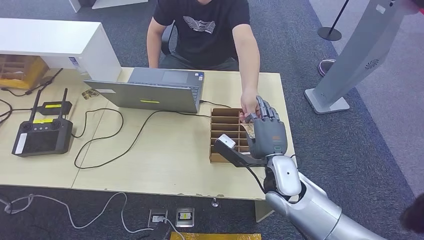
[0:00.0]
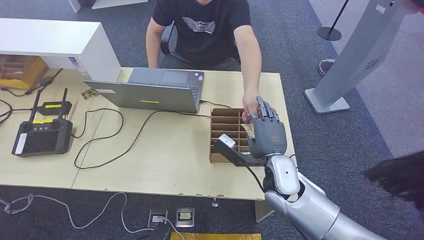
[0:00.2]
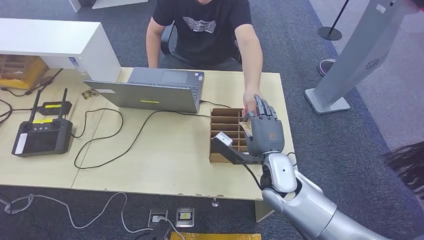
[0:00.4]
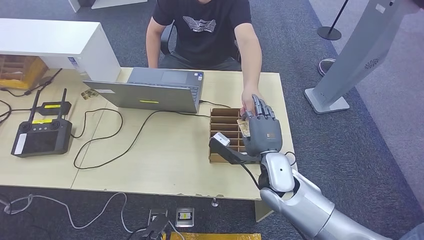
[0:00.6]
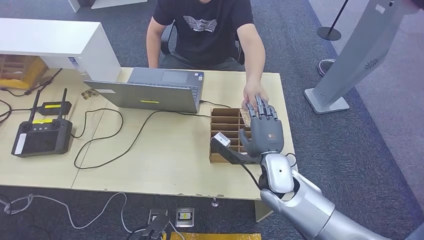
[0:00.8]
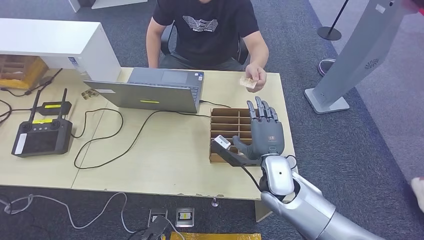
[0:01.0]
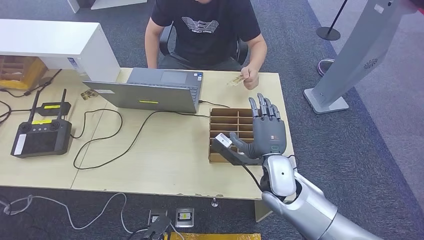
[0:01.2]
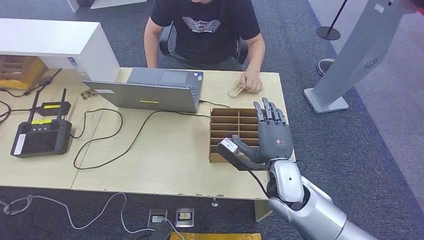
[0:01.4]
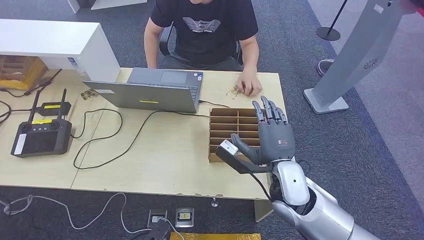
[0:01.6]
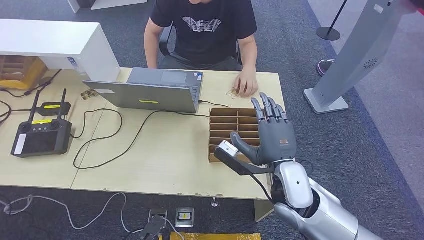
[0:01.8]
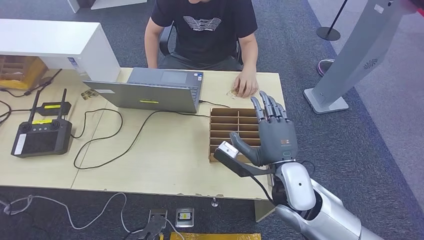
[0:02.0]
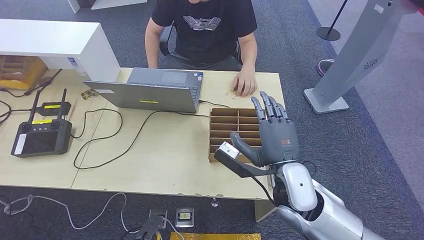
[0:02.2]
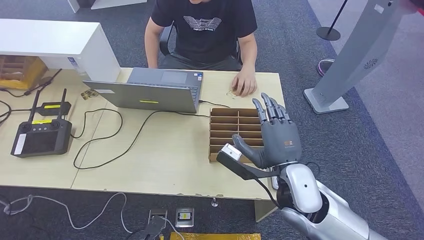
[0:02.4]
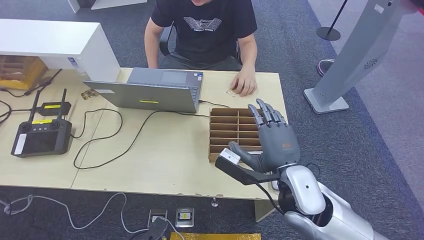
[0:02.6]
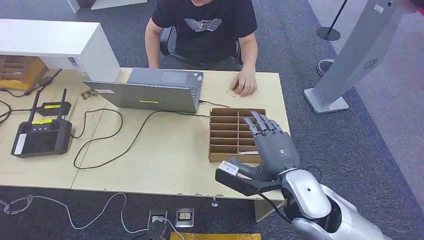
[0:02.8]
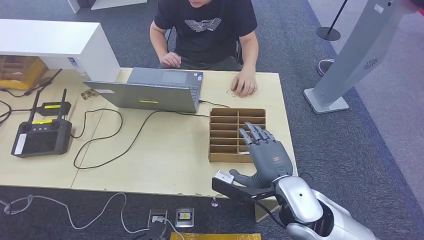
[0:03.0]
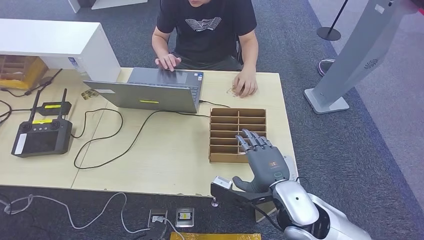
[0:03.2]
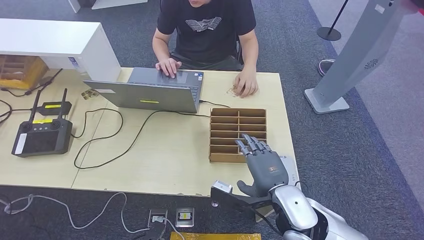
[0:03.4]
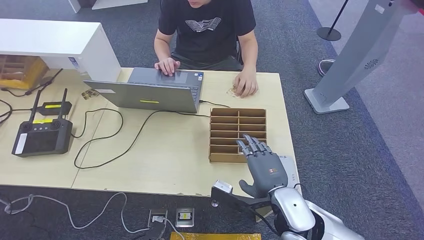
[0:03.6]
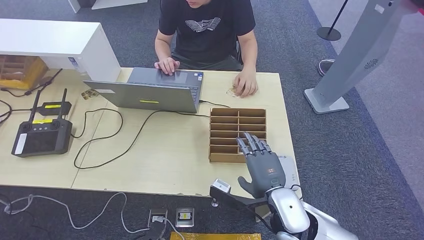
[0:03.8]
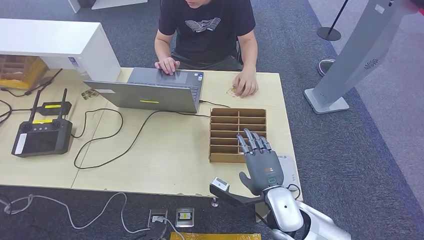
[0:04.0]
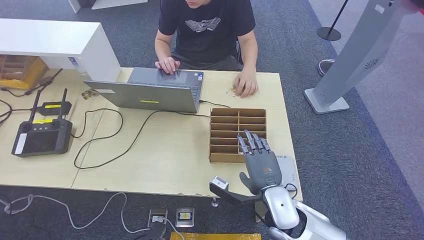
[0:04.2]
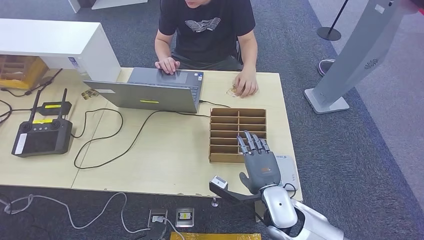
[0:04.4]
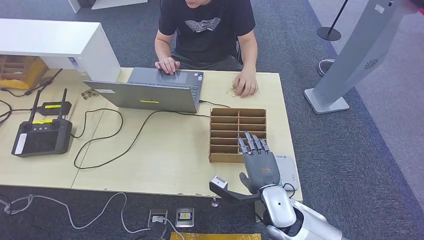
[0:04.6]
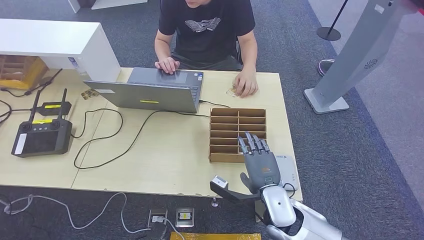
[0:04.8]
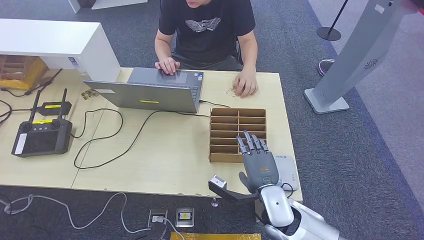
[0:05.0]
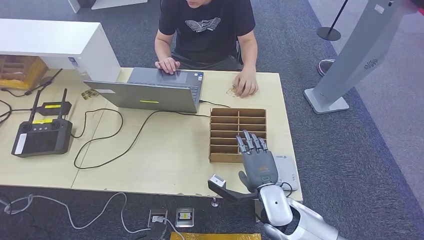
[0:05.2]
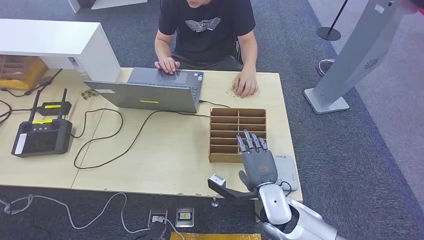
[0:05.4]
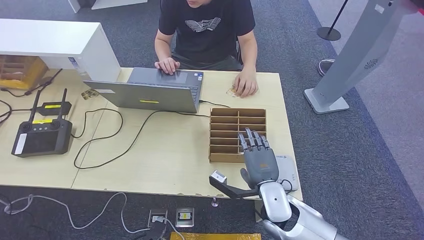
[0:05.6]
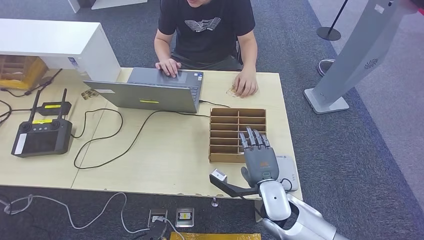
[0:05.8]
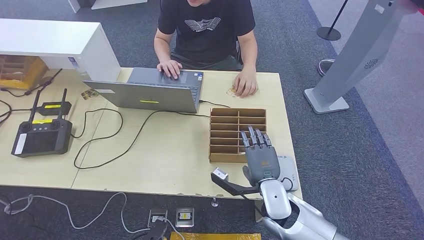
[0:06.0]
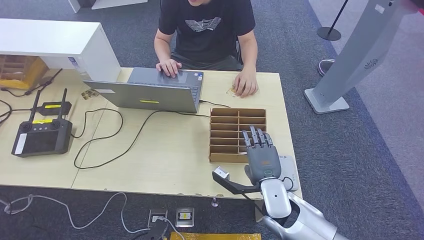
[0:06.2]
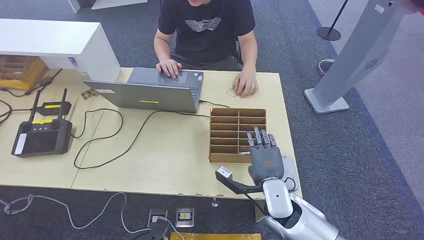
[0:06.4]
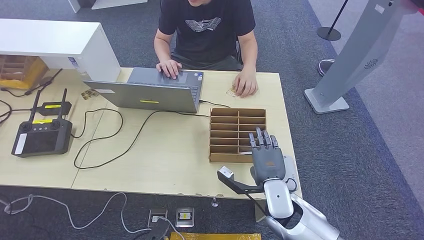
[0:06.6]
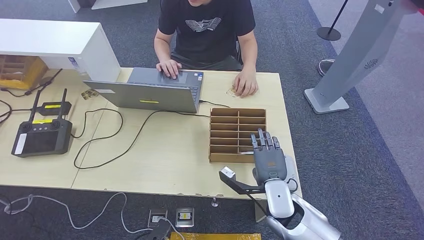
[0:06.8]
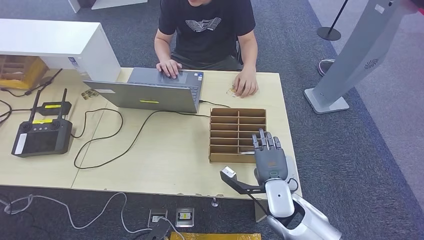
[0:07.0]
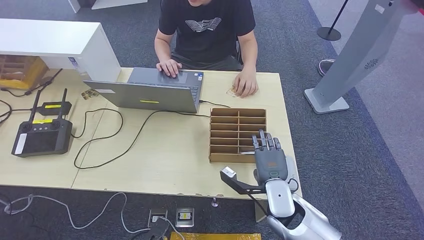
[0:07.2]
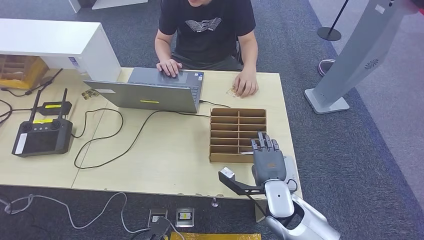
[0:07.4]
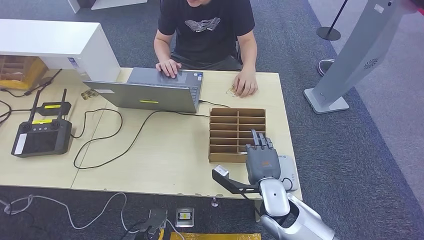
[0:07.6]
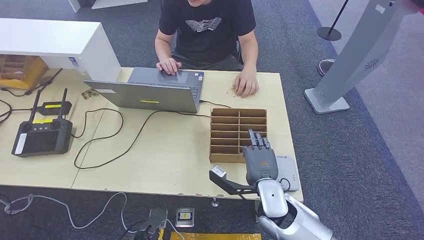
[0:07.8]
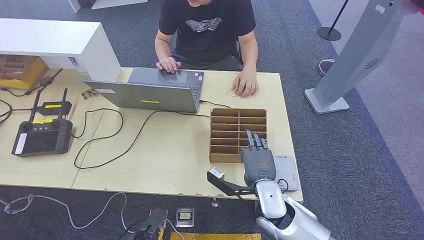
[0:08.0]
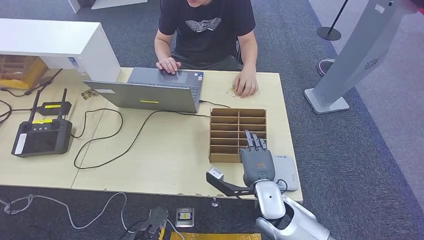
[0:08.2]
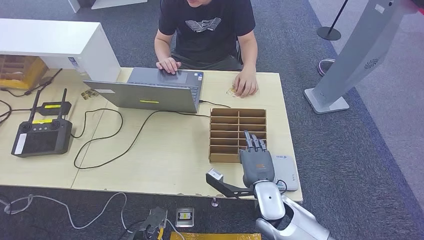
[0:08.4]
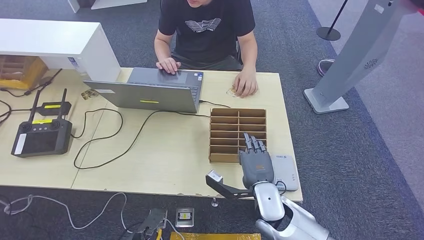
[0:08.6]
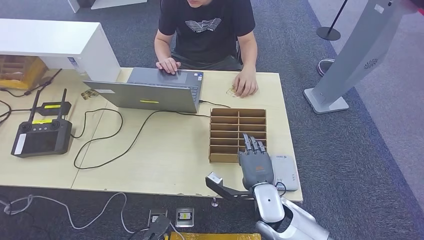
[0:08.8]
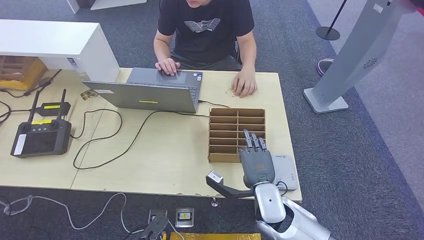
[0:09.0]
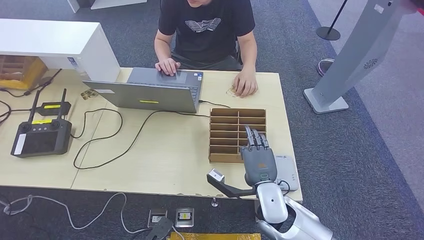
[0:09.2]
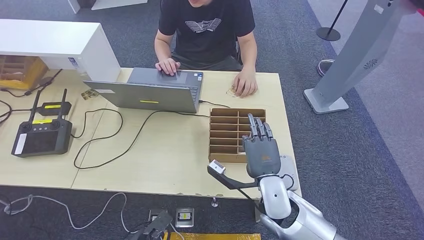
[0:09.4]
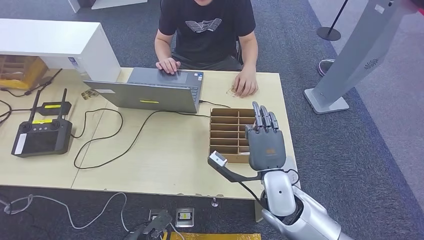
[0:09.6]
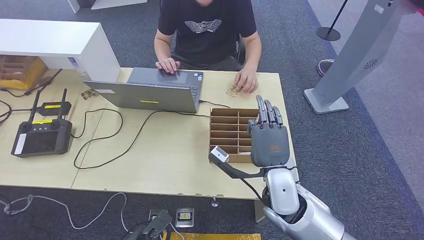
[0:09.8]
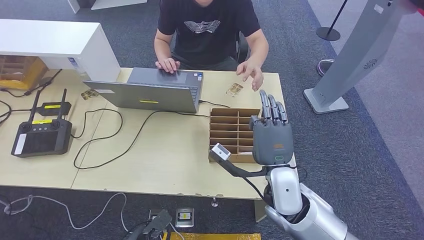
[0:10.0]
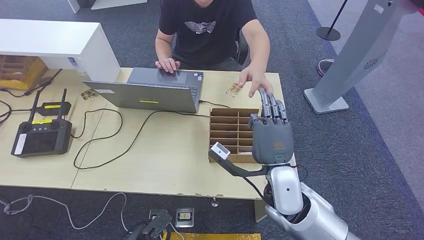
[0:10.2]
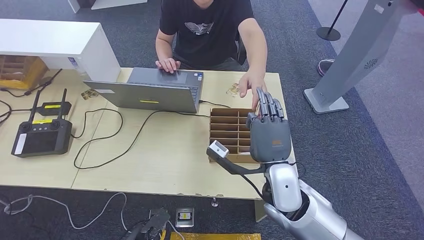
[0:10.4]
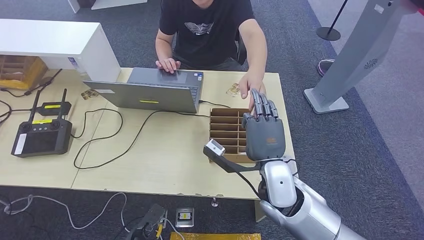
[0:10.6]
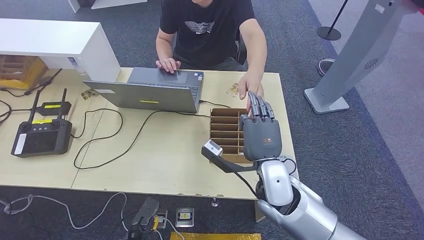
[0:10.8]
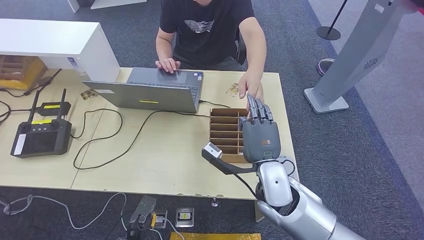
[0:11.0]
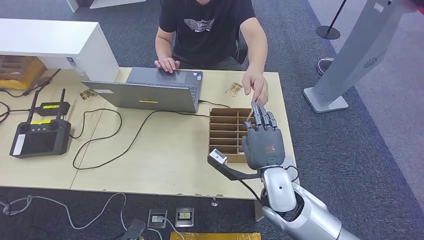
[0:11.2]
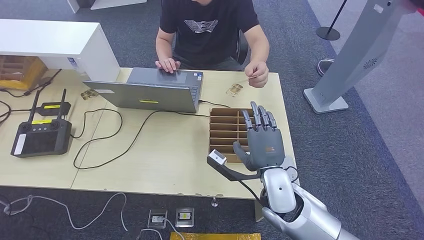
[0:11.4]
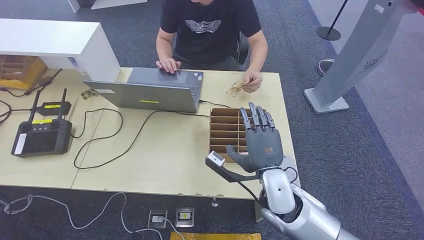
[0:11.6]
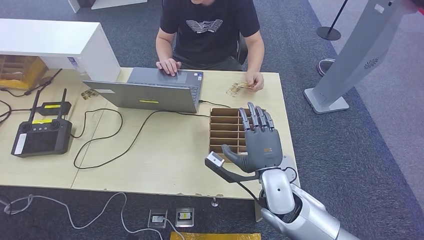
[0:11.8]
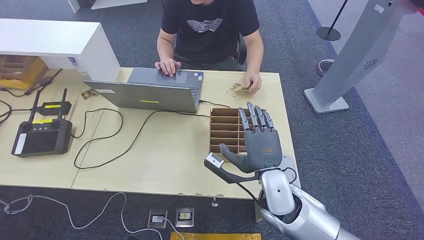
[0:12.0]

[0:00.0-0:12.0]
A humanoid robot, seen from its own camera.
Step, 0:01.4 to 0:10.0: Pick up the room key from the key card box.
0:00.0 to 0:01.6: The hands make only small movements.
0:01.6 to 0:03.0: The hands stay close to where they were, moving slightly.
0:03.0 to 0:04.4: The right hand shifts some 10 cm downward.
0:04.4 to 0:09.0: The hands stay close to where they were, moving slightly.
0:09.0 to 0:10.4: The right hand heads upward, covering approximately 10 cm.
0:10.4 to 0:12.0: The left hand is displaced downward and to the left by some 10 cm.

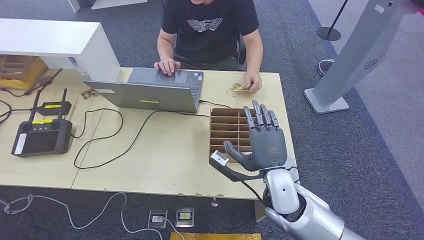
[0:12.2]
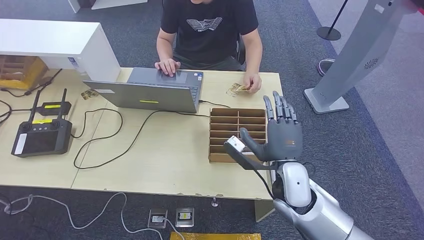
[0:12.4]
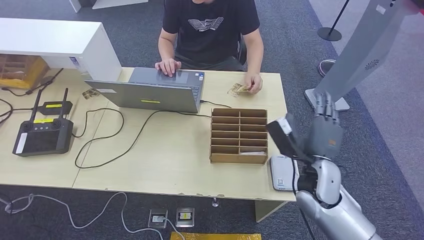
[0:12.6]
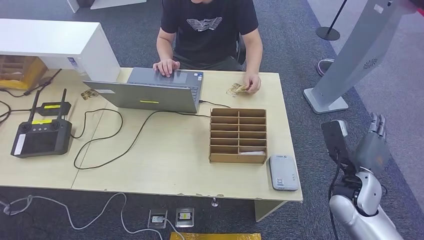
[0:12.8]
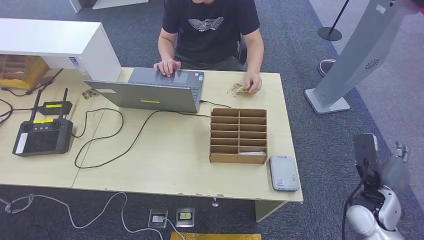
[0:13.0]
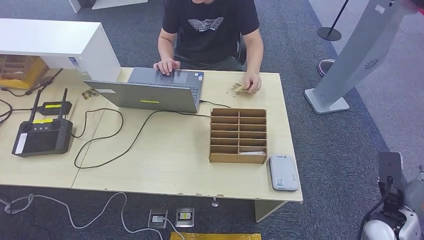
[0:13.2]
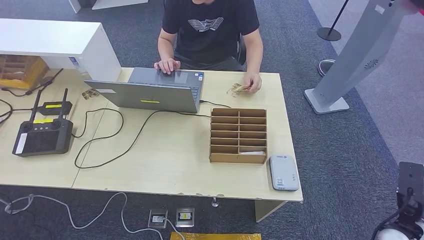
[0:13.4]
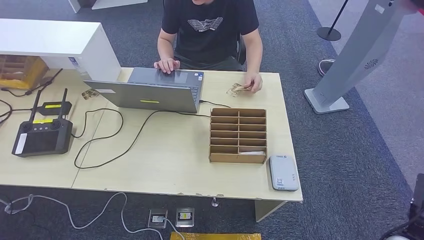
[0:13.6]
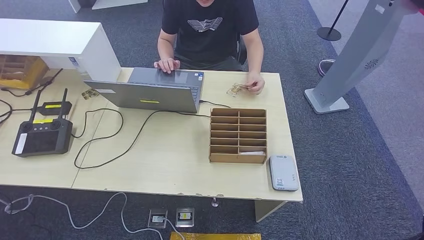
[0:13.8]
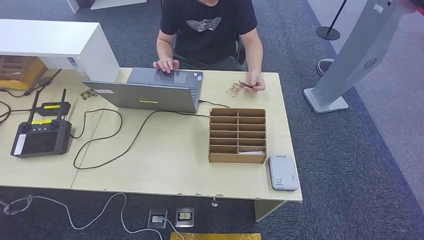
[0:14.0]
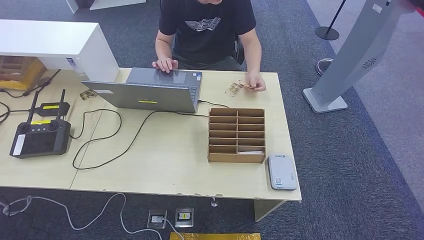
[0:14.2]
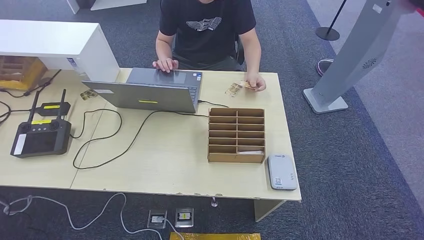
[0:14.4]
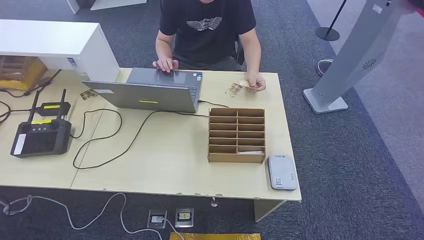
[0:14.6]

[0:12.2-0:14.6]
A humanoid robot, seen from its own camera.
Step, 0:12.2 to 0:14.4: Hand the room key to the person.
0:12.2 to 0:13.4: The right hand goes some 30 cm to the right.
0:13.4 to 0:14.6: The right hand shifts approximately 30 cm downward, backward and to the left.
